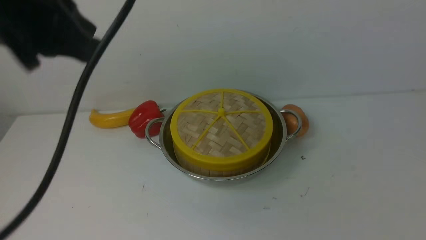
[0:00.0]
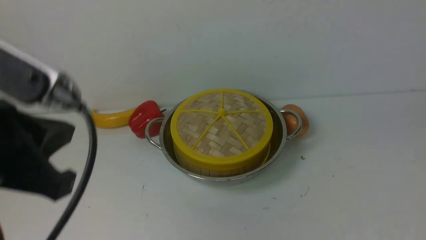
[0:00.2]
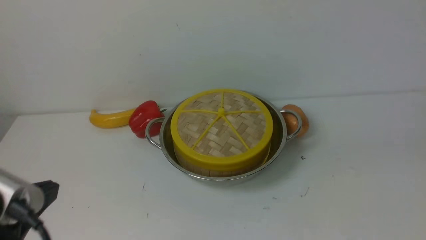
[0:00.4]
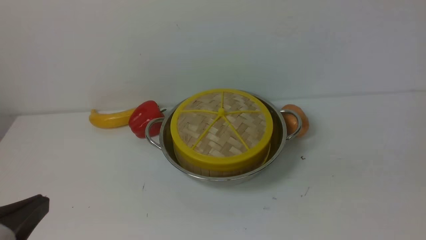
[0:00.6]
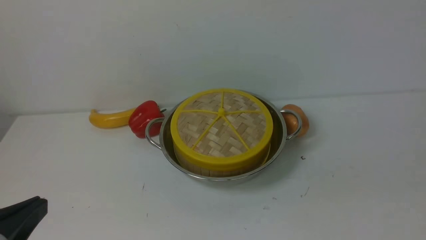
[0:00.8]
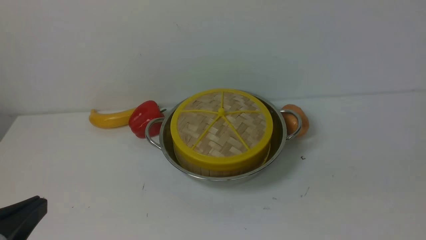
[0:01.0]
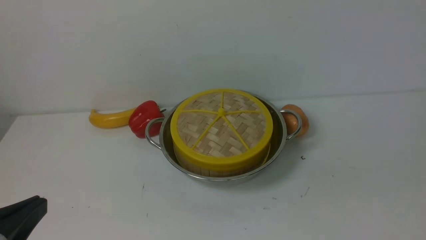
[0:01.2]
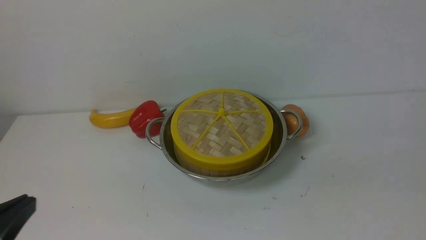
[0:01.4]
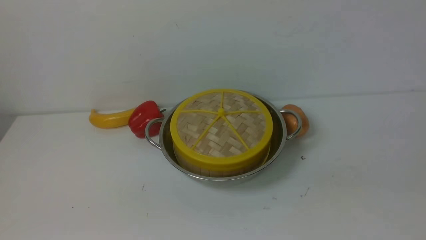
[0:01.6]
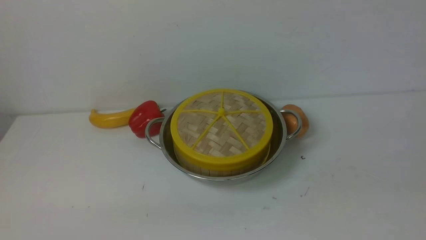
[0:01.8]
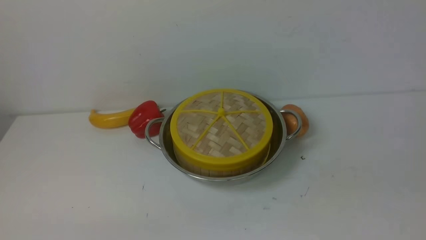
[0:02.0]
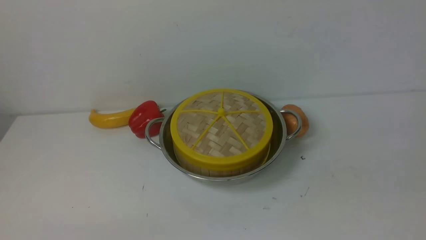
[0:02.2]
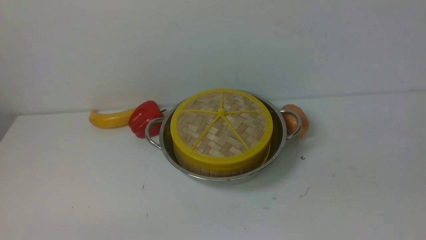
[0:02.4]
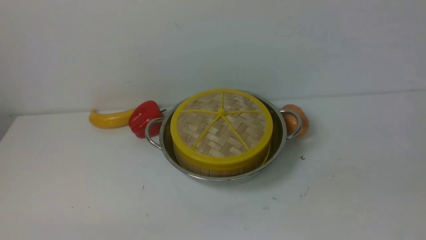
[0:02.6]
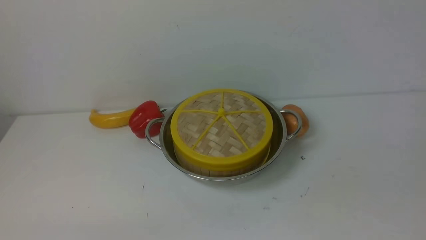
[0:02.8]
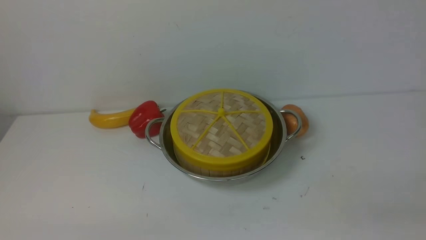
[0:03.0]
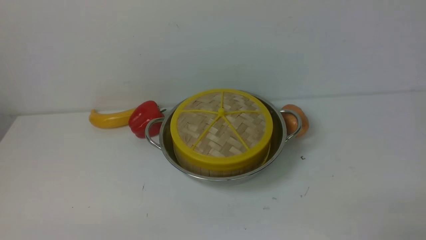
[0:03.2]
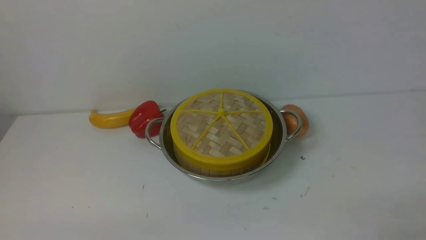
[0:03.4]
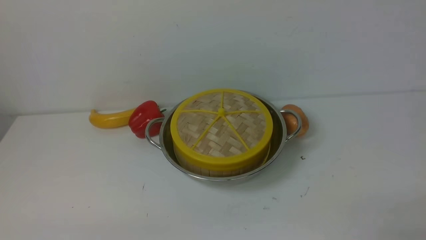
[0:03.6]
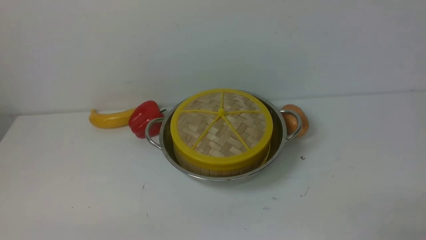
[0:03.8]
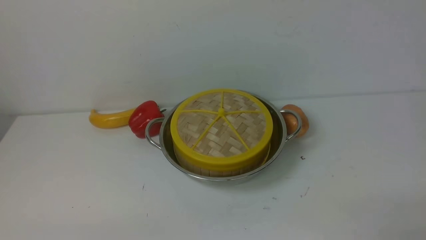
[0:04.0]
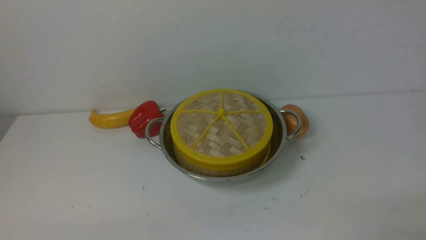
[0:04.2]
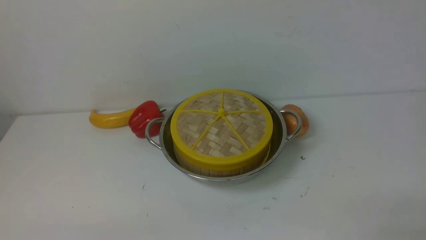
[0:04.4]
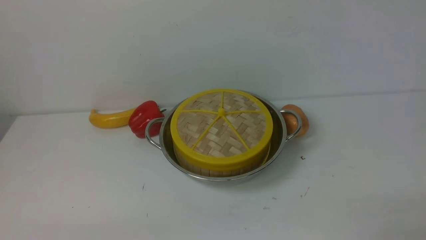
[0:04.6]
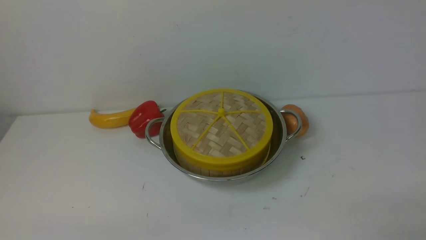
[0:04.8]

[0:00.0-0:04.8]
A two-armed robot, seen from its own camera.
Task of the whole recording: place the steamer in the pot on the white table, and put the lid on the steamer.
0:00.0 to 0:01.6: The left gripper shifts about 25 cm downward, backward and to the left.
0:03.2 to 0:04.8: Both grippers stay put.
